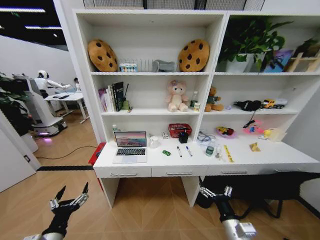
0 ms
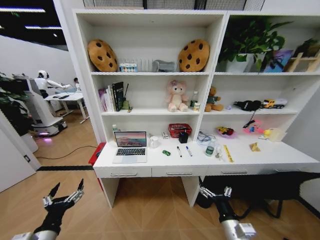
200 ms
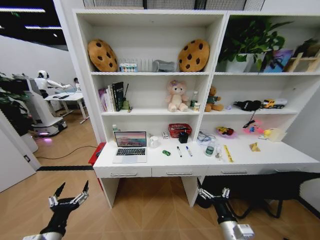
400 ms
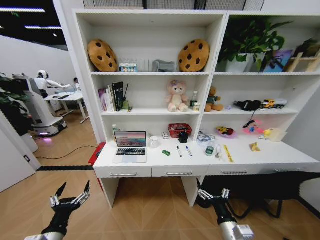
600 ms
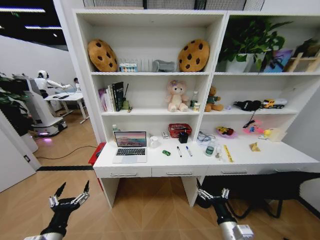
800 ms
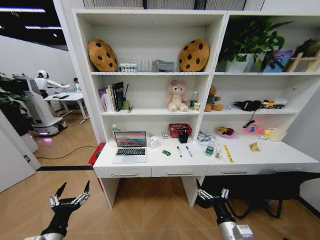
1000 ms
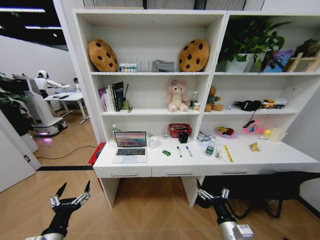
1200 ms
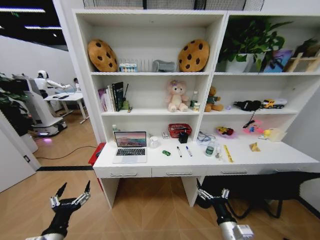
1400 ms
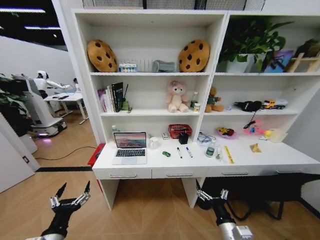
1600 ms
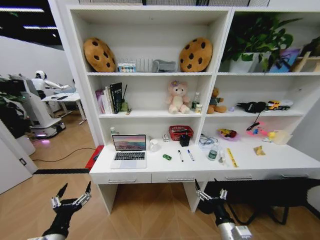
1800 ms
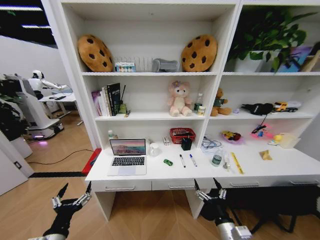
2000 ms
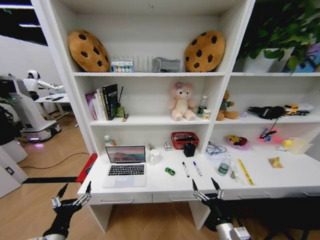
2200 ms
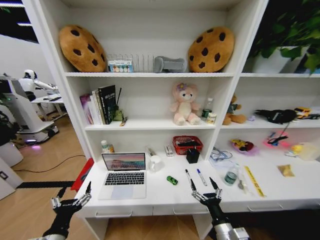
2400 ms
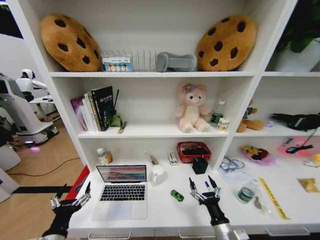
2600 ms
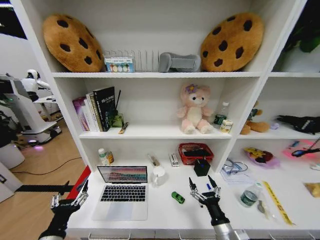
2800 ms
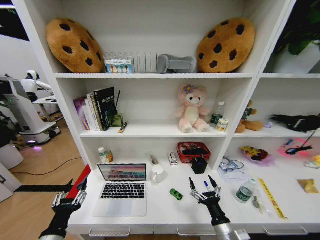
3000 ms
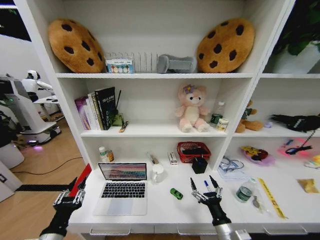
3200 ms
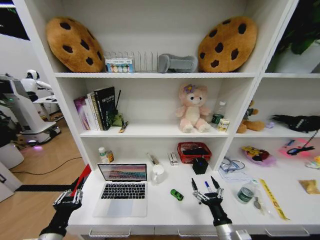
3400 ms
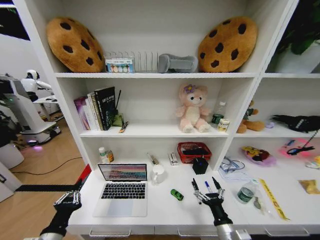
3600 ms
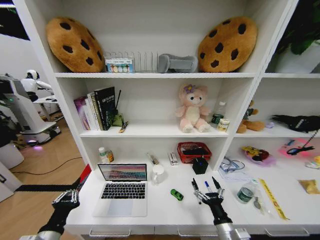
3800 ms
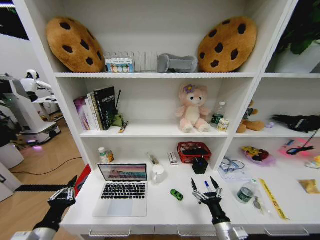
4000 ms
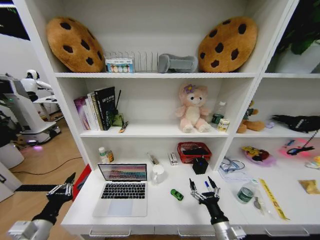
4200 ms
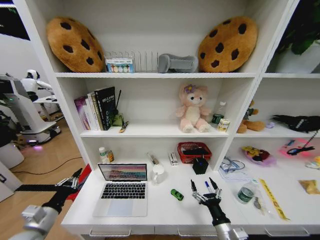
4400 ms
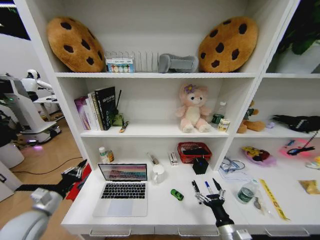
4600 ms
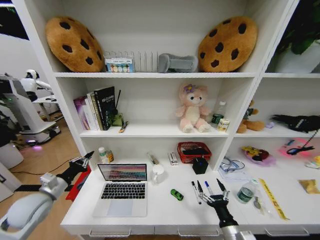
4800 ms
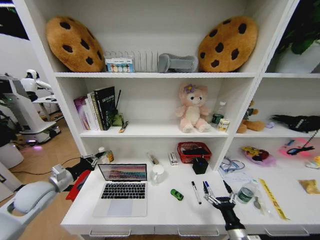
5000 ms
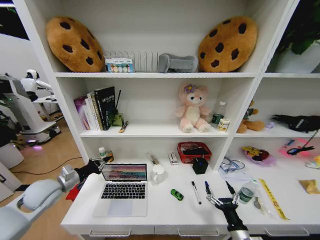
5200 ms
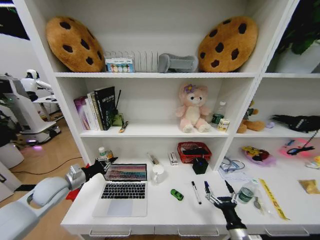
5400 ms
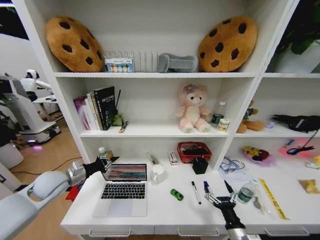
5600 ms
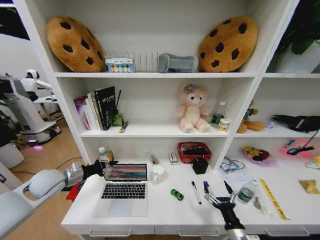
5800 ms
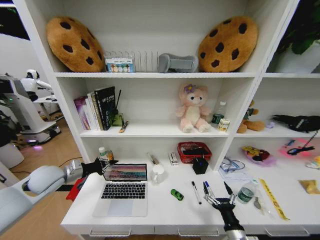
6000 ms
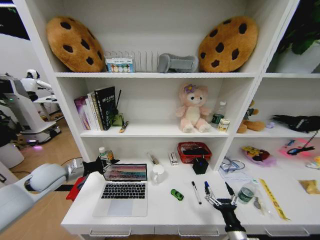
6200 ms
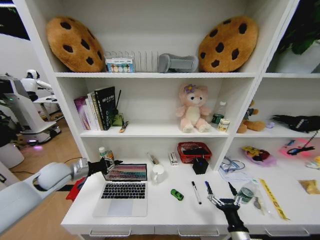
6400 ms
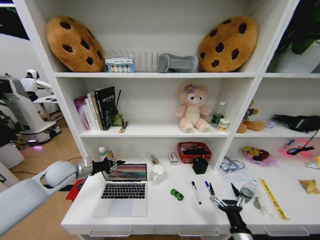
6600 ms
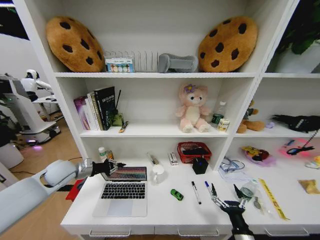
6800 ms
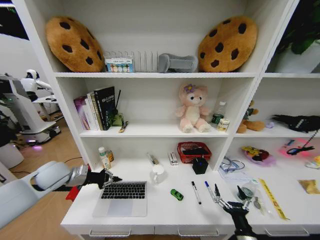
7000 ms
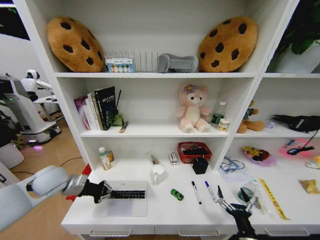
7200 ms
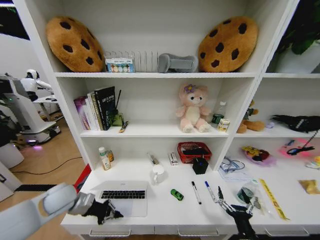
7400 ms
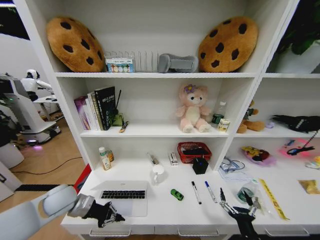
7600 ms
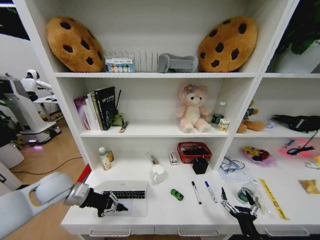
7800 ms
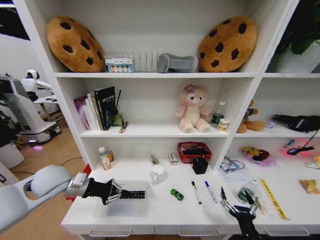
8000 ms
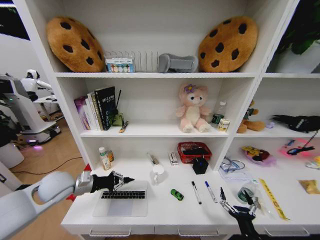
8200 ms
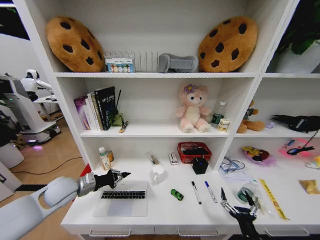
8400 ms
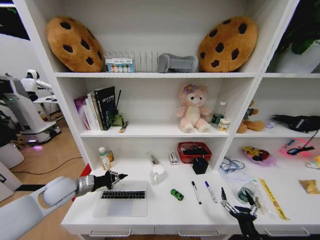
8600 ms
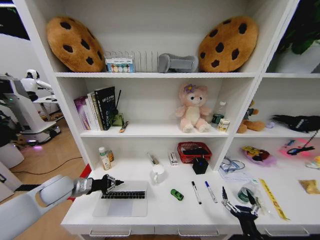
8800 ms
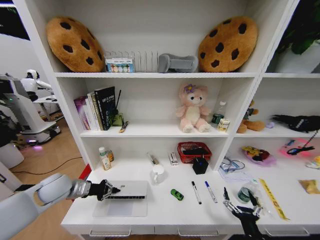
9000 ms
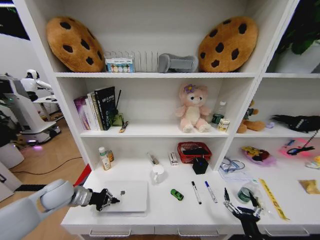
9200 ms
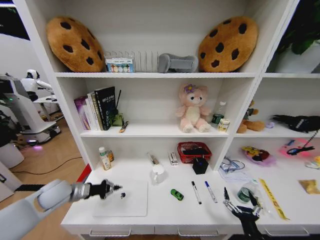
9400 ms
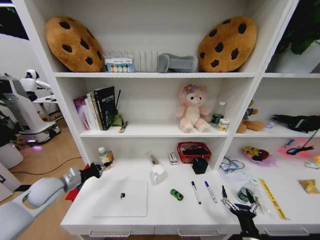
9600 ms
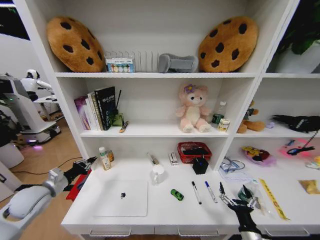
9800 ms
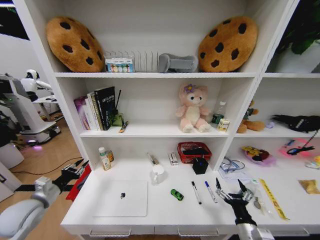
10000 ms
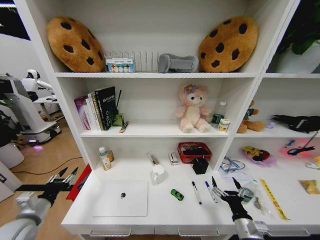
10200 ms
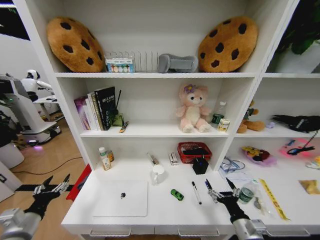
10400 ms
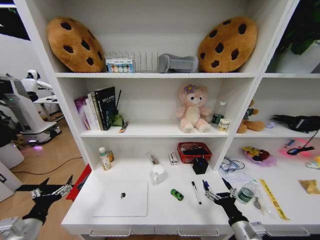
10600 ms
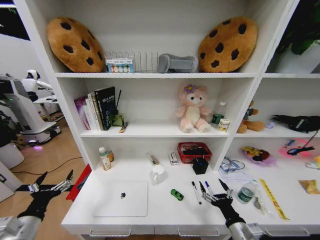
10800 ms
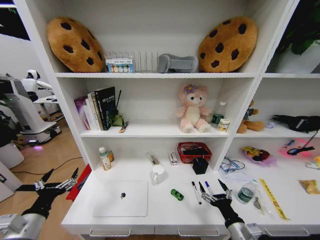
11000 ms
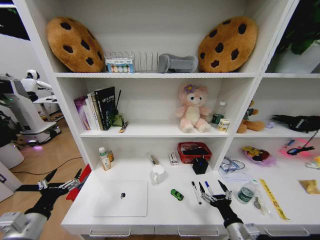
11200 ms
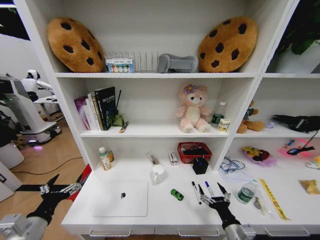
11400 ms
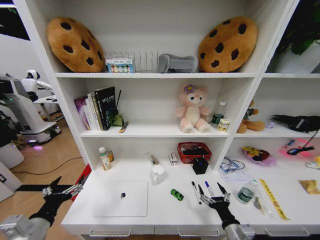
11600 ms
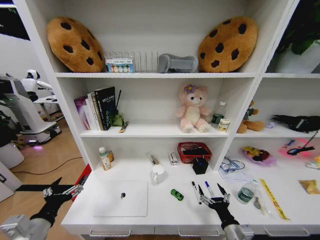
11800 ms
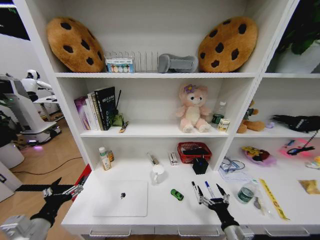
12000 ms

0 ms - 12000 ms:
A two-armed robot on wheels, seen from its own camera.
Task of the whole recording: Organize the objects on the table.
3000 ms - 4400 ms: The left gripper goes about 10 cm to the left and forward, and closes.
4400 ms - 6000 ms: The left gripper goes approximately 20 cm forward and upward.
6000 ms - 7600 ms: The left gripper moves downward, about 5 cm.
9000 ms - 10400 ms: The left gripper is displaced backward by approximately 15 cm, and opens its fingers, while the right gripper heads forward, covering approximately 5 cm.
10400 ms - 12000 ms: The left gripper moves to the right, some 5 cm.

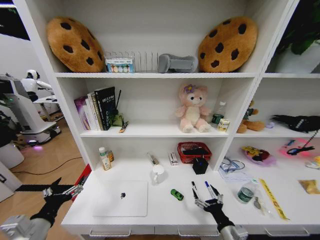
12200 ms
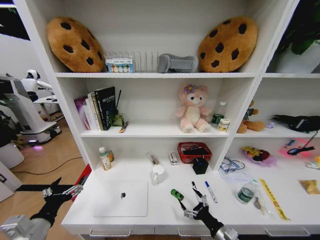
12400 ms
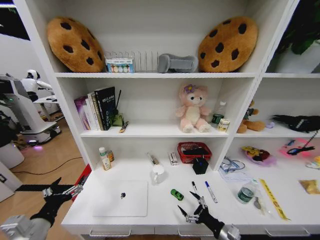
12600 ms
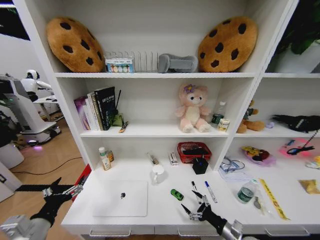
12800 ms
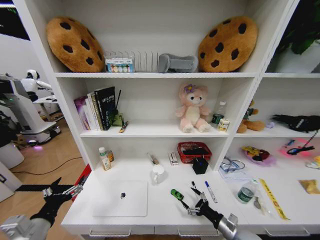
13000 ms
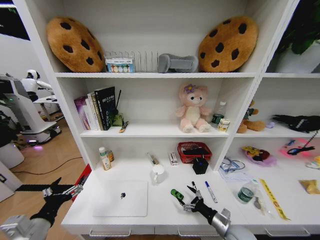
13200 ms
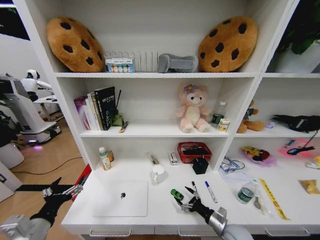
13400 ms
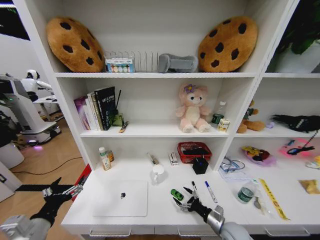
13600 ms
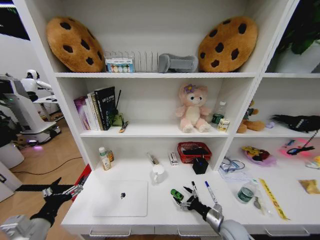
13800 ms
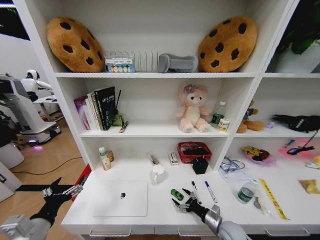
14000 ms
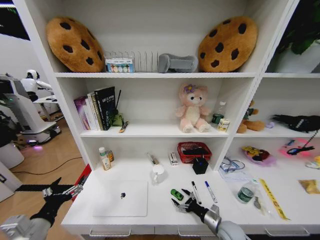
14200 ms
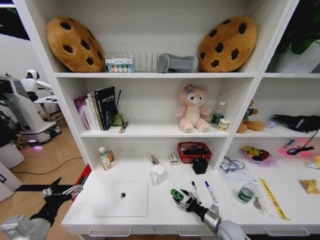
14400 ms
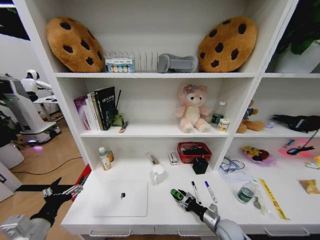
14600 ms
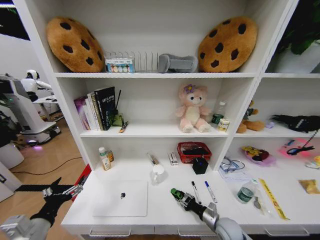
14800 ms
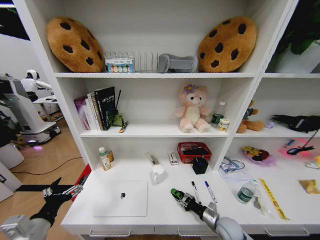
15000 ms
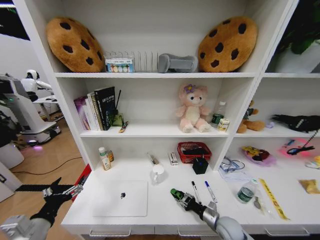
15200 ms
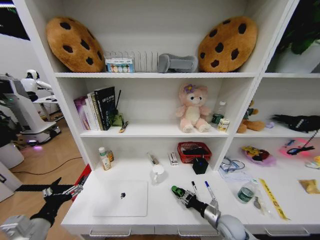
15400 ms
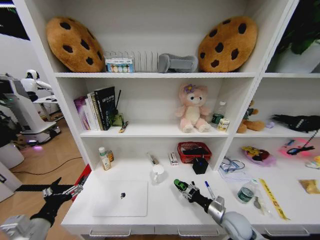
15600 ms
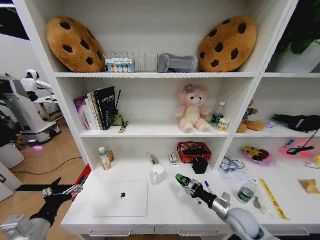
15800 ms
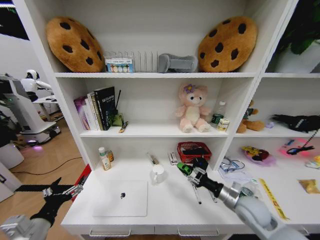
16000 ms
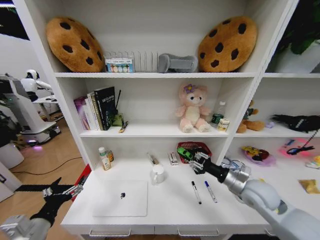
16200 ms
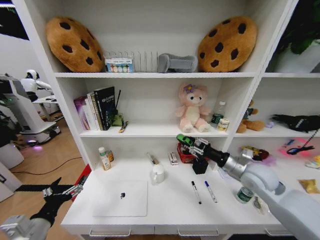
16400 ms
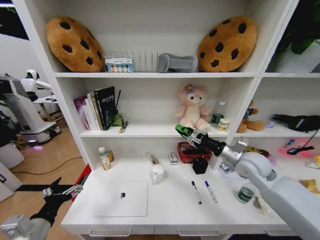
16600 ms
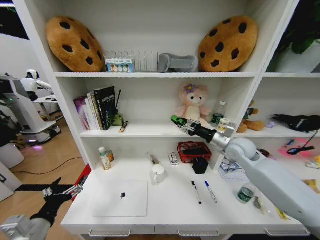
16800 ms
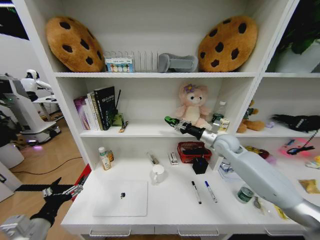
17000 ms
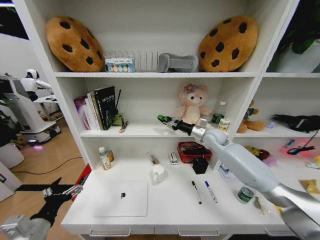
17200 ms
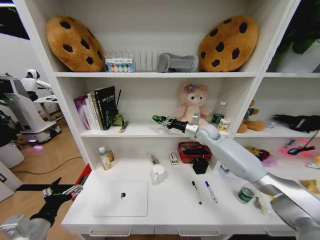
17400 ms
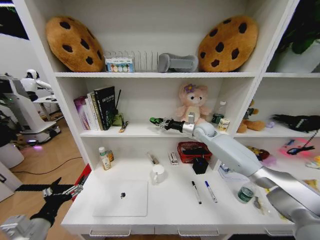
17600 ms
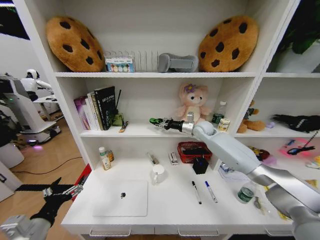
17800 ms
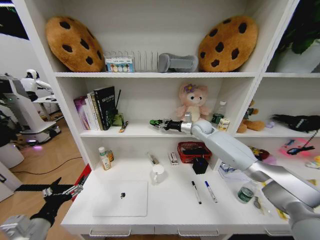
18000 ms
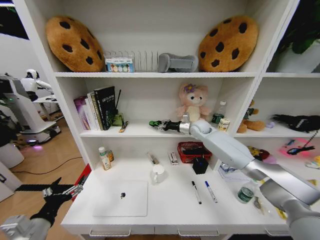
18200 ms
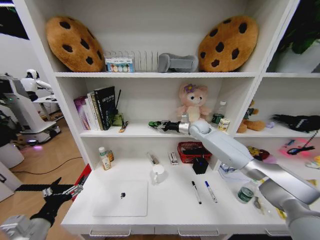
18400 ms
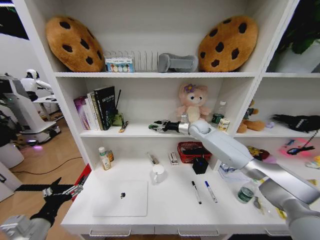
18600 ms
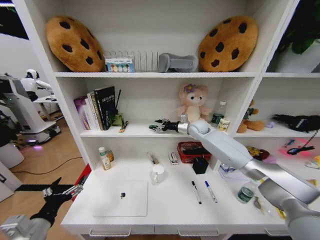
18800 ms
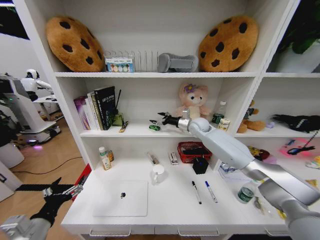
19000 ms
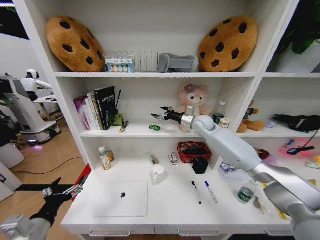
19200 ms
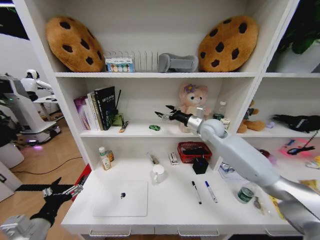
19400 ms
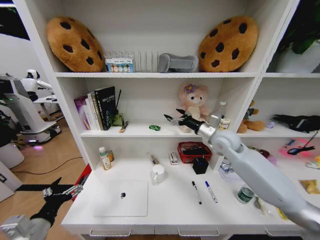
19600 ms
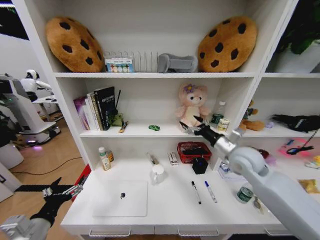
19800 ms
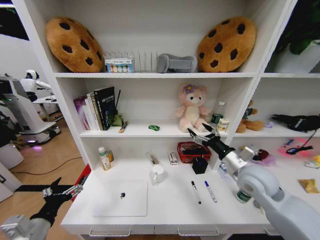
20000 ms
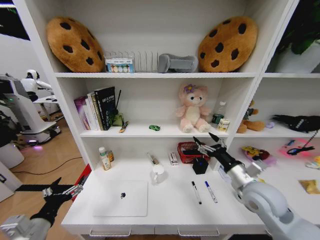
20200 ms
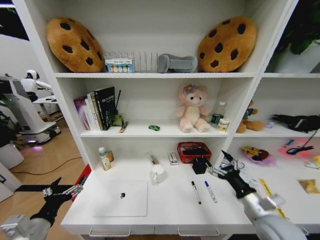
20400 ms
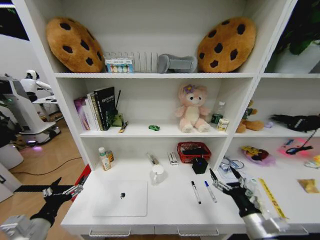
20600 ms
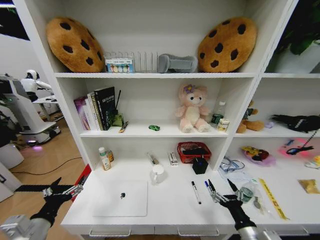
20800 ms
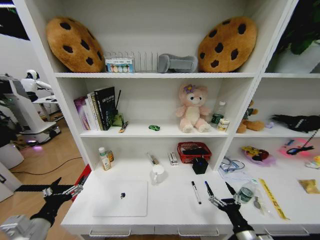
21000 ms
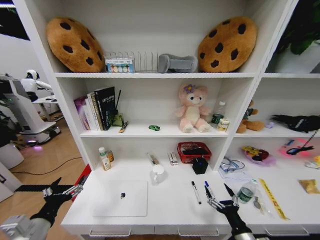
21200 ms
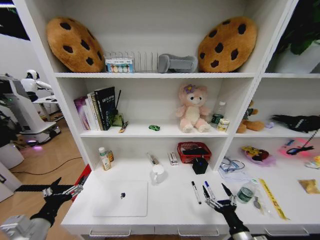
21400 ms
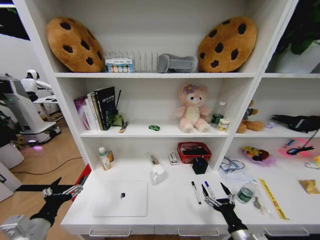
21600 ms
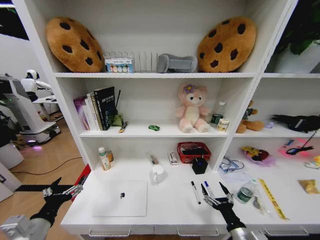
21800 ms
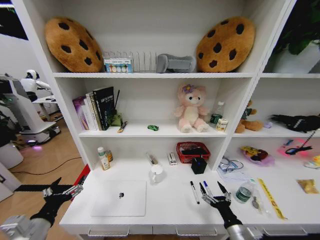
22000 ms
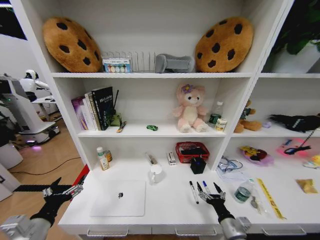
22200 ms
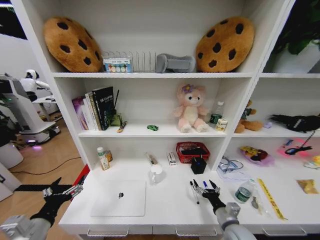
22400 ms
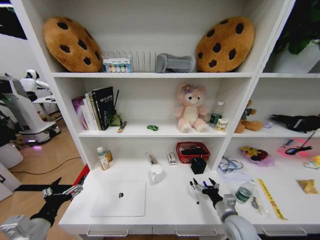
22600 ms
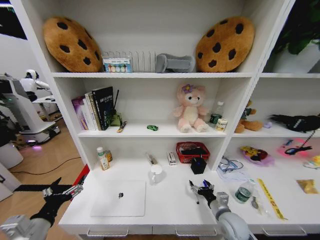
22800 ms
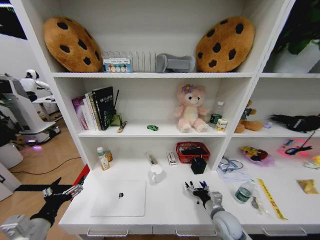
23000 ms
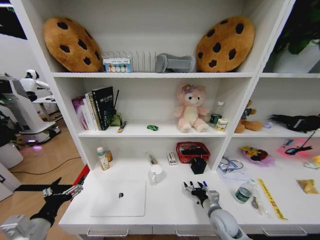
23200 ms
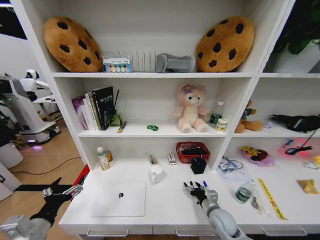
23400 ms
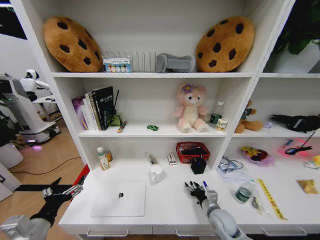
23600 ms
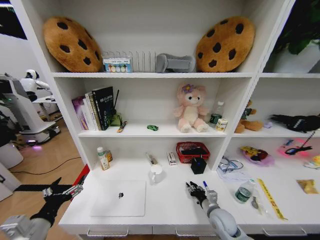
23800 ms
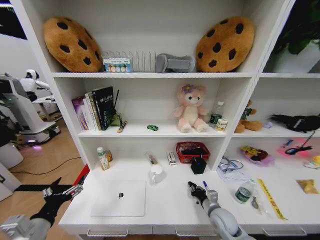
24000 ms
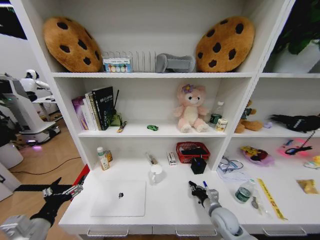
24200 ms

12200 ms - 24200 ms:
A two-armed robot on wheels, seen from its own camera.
Task of the whole recording: Organize the objects on the table.
12200 ms - 13800 ms: The right gripper moves forward and downward, about 10 cm.
13800 ms - 15200 ms: The right gripper closes up.
15200 ms - 16600 ms: The right gripper moves upward and forward, roughly 35 cm.
16600 ms - 18200 ms: The right gripper heads forward and to the left, covering roughly 25 cm.
18200 ms - 19800 ms: The right gripper goes roughly 20 cm backward, and opens its fingers.
19800 ms - 21200 ms: The right gripper heads backward and downward, covering roughly 35 cm.
21200 ms - 22600 ms: The right gripper travels forward by roughly 10 cm.
22600 ms - 24200 ms: The right gripper ends up roughly 5 cm from where it was, and closes.
